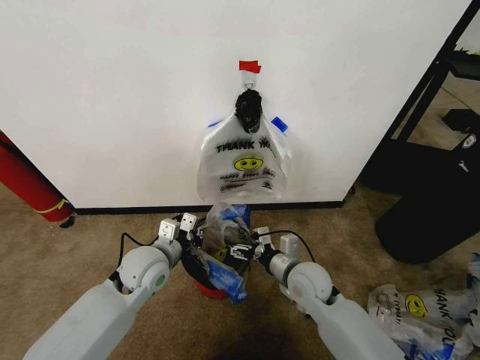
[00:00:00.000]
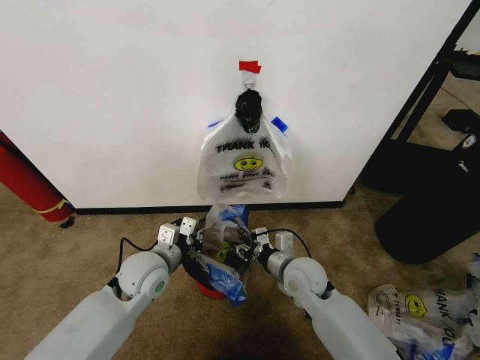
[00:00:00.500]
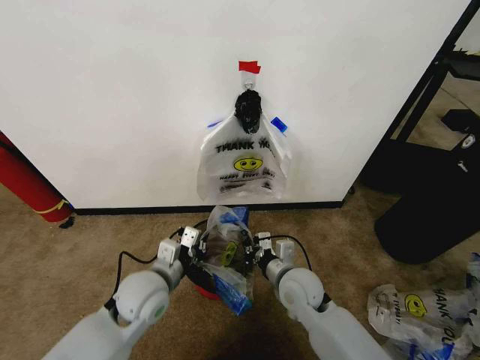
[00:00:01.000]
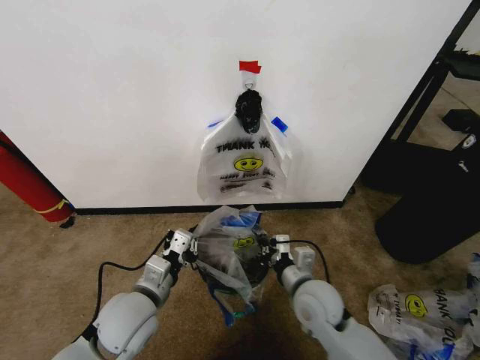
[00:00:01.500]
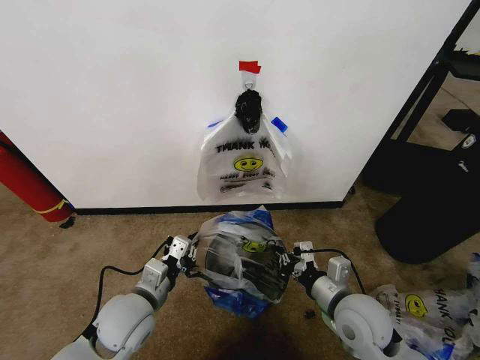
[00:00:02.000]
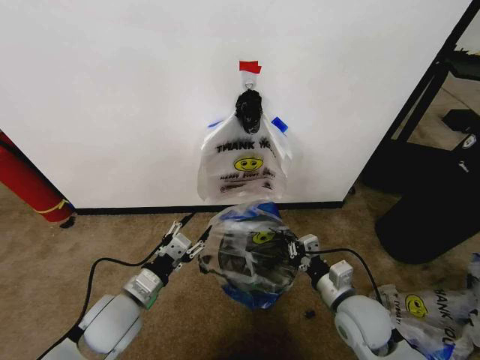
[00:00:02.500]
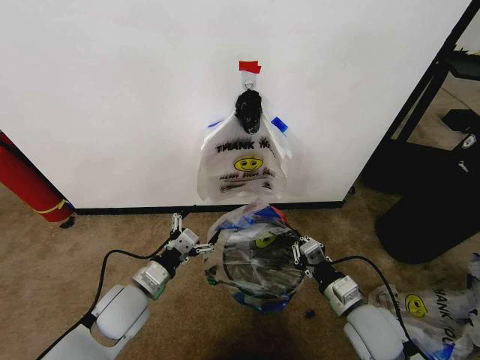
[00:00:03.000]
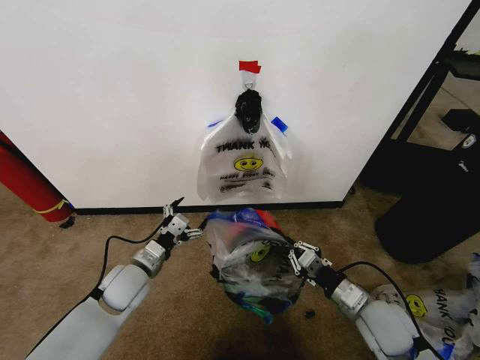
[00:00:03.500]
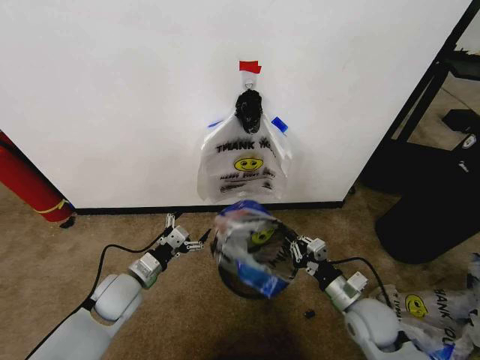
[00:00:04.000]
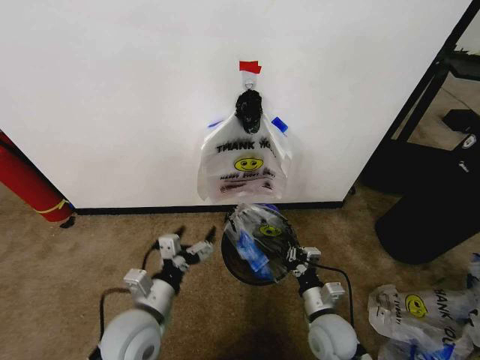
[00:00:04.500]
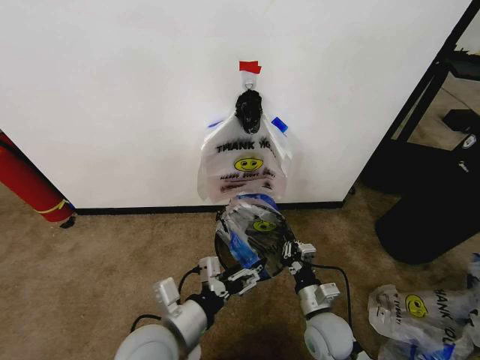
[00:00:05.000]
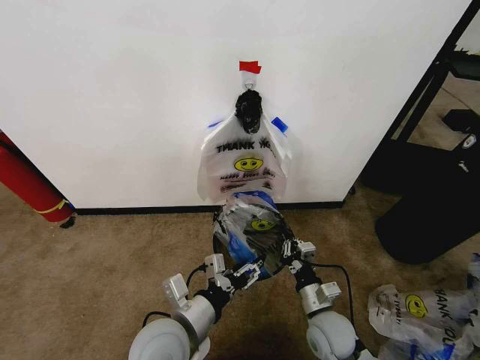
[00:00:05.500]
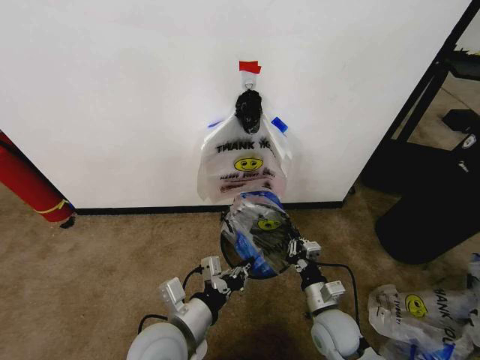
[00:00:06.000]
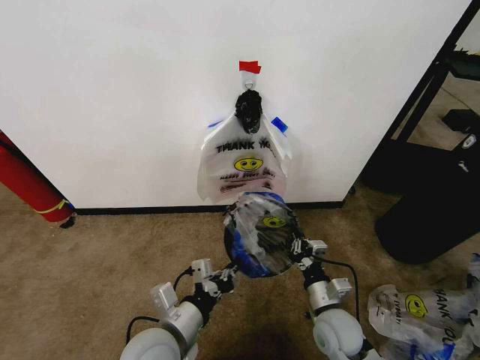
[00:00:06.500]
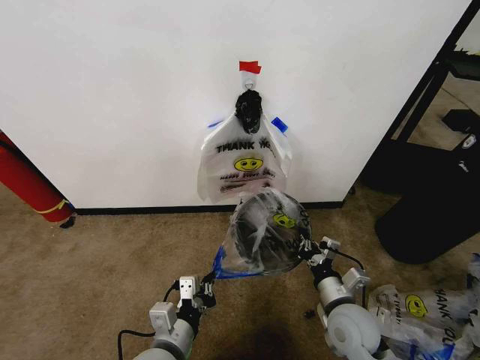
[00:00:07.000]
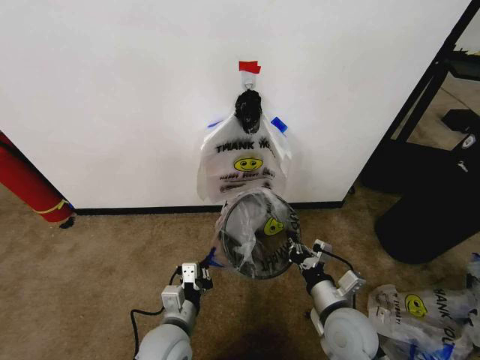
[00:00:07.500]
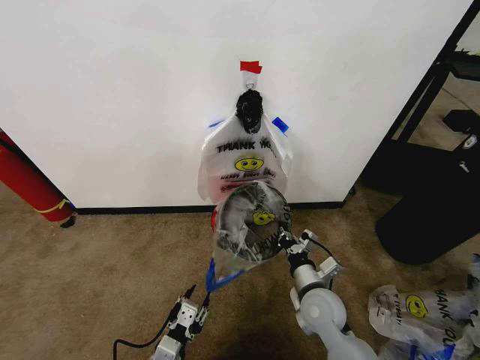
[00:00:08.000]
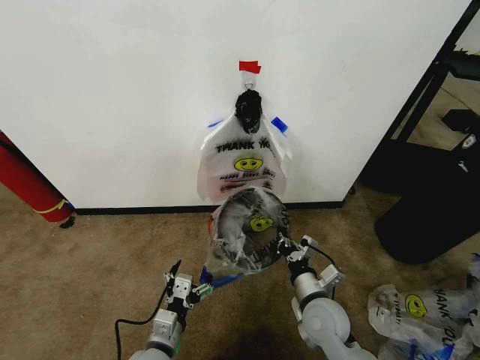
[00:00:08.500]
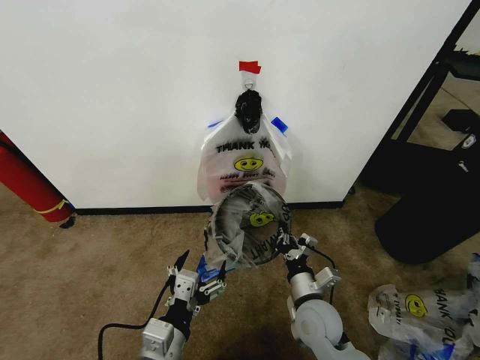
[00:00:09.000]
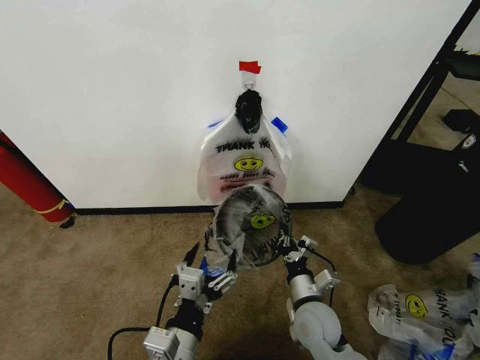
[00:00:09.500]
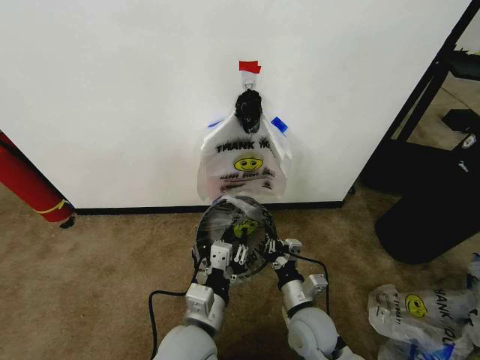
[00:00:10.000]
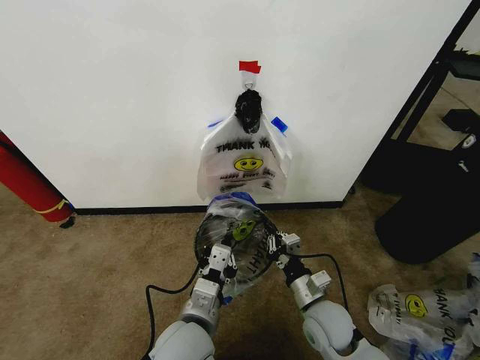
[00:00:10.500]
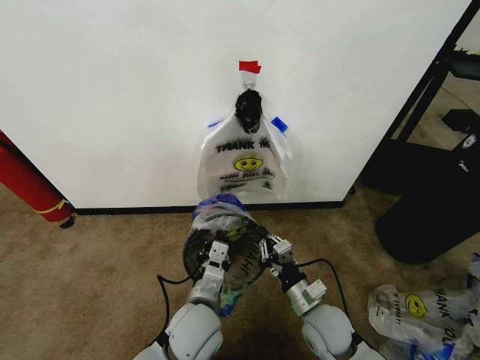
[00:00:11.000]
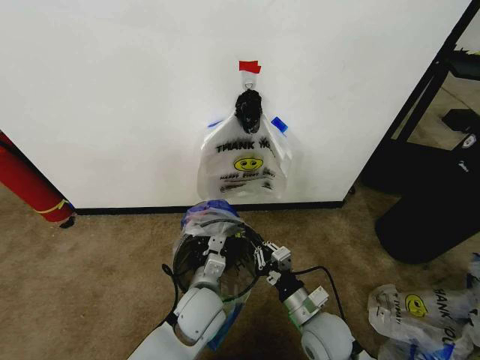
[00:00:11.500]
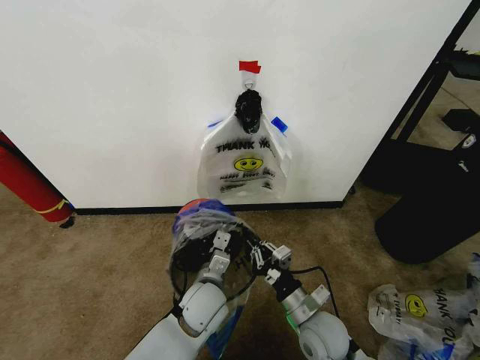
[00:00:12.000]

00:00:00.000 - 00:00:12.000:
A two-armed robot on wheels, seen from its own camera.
Task of the whole recording: Pick up the garbage bag from the wall and place it over the trash bin.
00:00:00.000 - 00:00:02.000: The left gripper goes roughly 10 cm backward, while the right gripper is displaced backward and to the right by approximately 10 cm, and closes.
00:00:02.000 - 00:00:04.000: The left gripper is displaced forward and to the left by about 10 cm, and opens its fingers. The right gripper goes some 10 cm downward and to the right.
00:00:04.000 - 00:00:06.000: The left gripper shifts roughly 20 cm to the right, backward and upward, and closes its fingers. The right gripper travels to the left by roughly 5 cm.
00:00:06.000 - 00:00:08.000: The right gripper ends up approximately 5 cm from where it was, while the left gripper is displaced downward, backward and to the left by roughly 15 cm, and opens up.
00:00:08.000 - 00:00:10.000: The left gripper moves upward, to the right and forward, approximately 15 cm, and opens and closes again; the right gripper ends up roughly 5 cm from where it was.
00:00:10.000 - 00:00:12.000: The left gripper heads forward and downward, covering some 10 cm, and closes up.

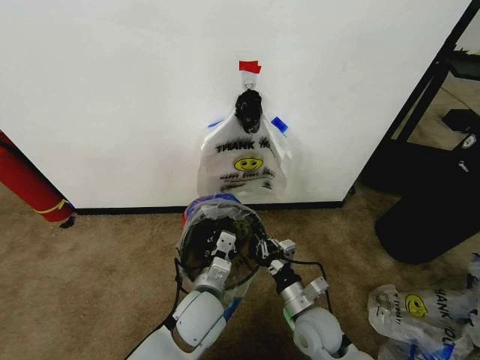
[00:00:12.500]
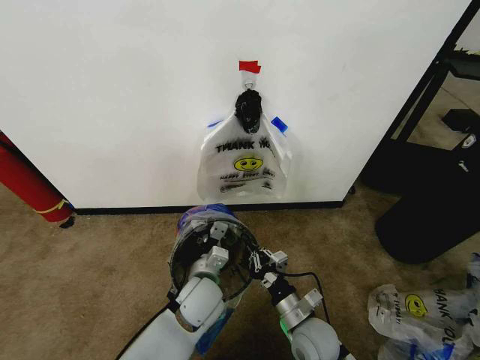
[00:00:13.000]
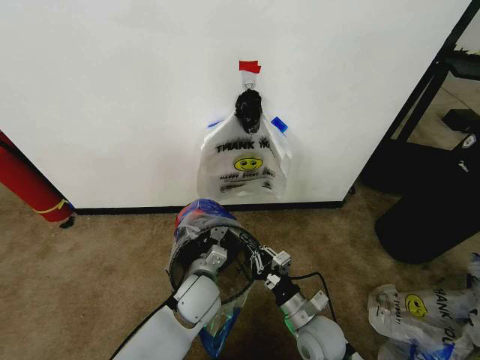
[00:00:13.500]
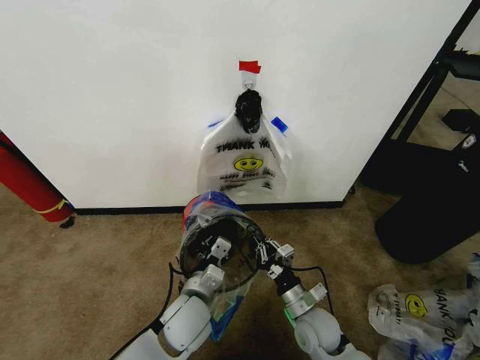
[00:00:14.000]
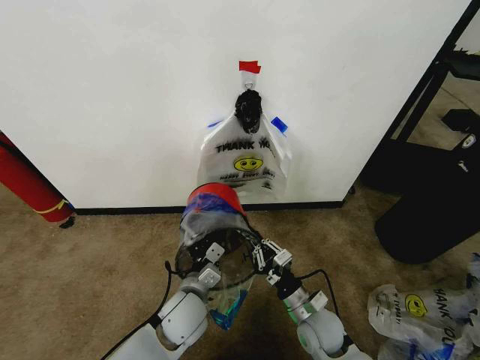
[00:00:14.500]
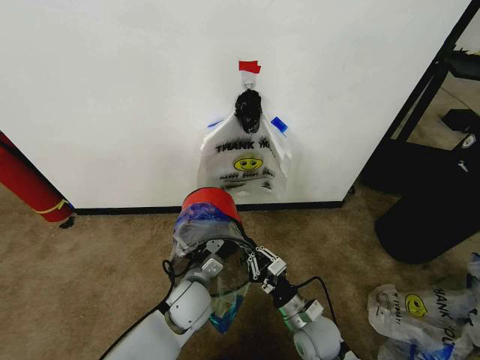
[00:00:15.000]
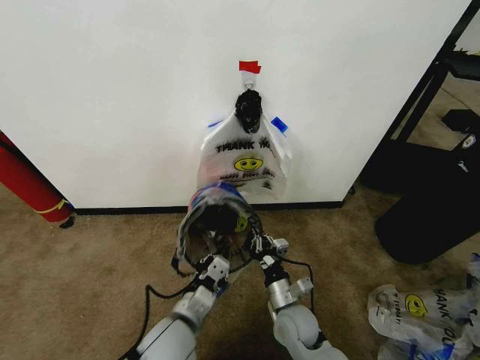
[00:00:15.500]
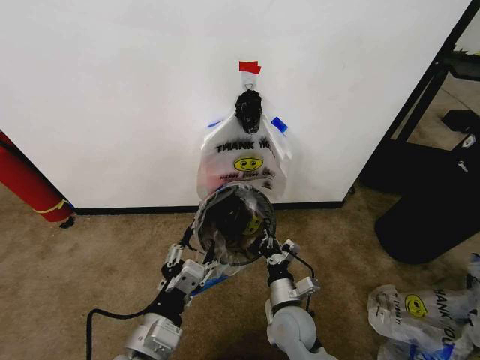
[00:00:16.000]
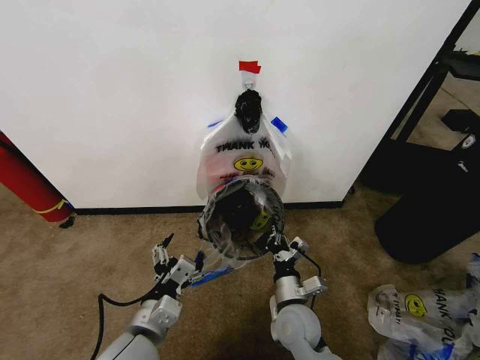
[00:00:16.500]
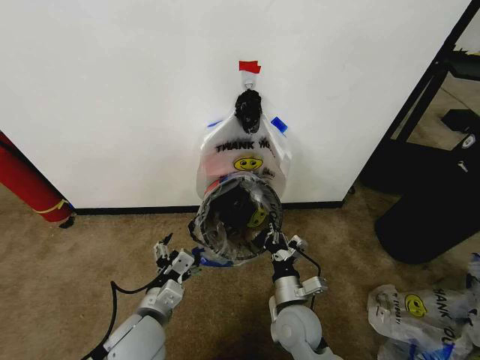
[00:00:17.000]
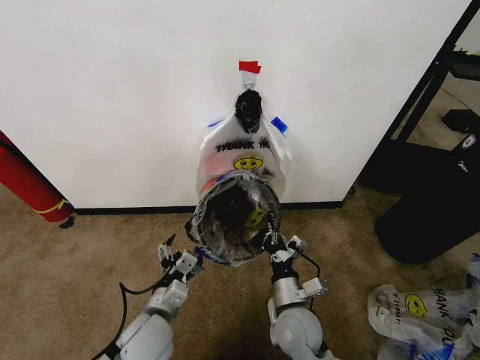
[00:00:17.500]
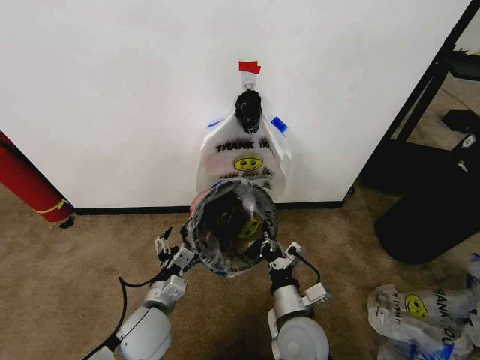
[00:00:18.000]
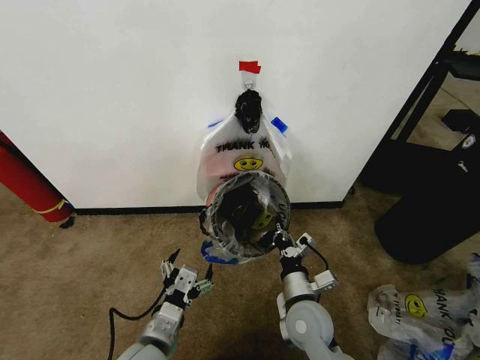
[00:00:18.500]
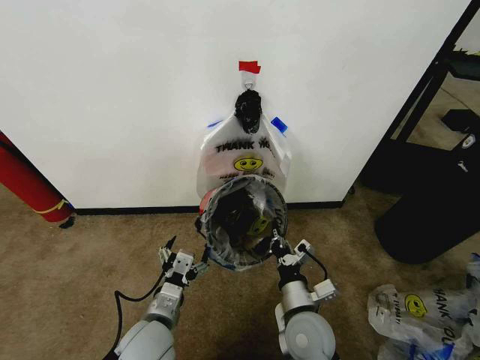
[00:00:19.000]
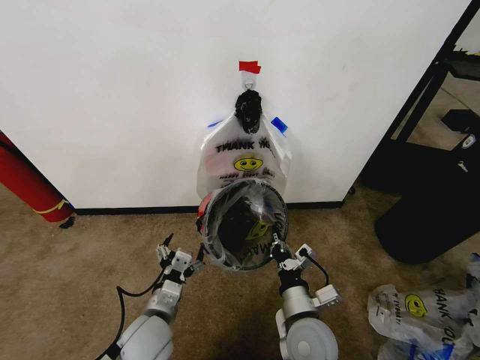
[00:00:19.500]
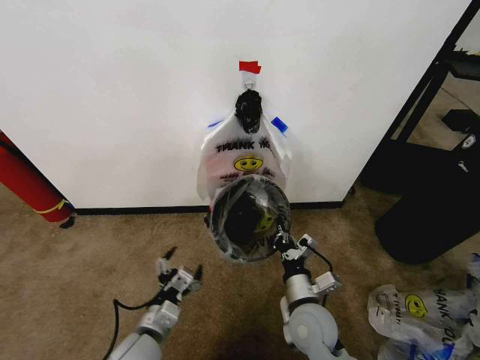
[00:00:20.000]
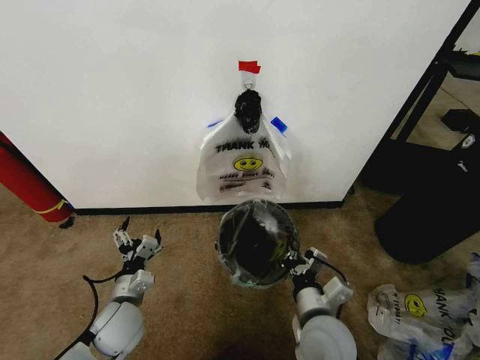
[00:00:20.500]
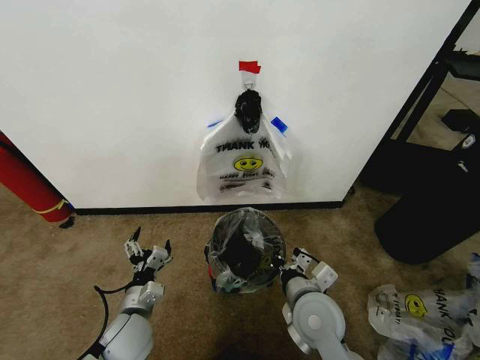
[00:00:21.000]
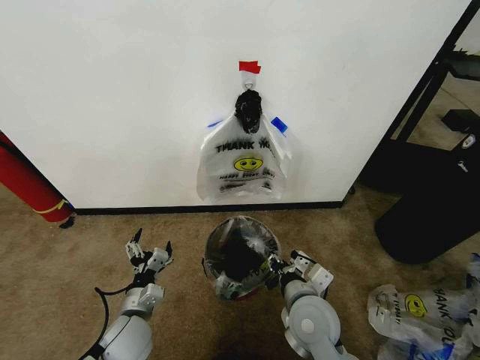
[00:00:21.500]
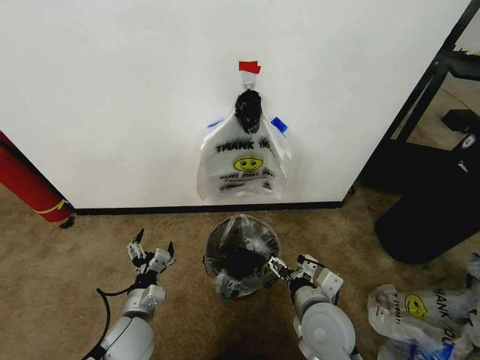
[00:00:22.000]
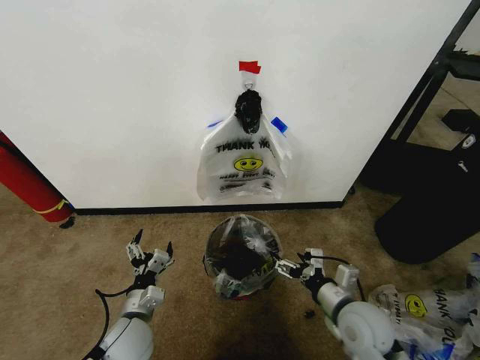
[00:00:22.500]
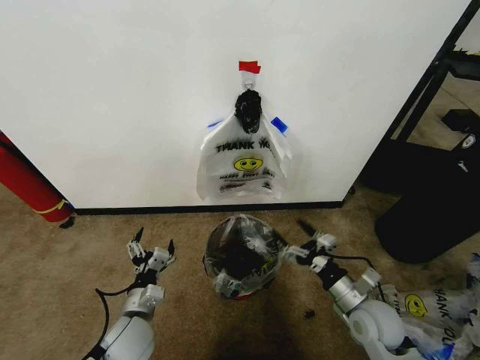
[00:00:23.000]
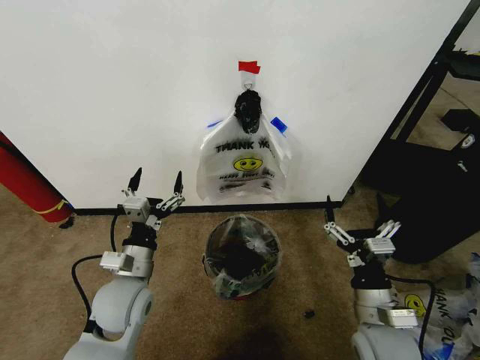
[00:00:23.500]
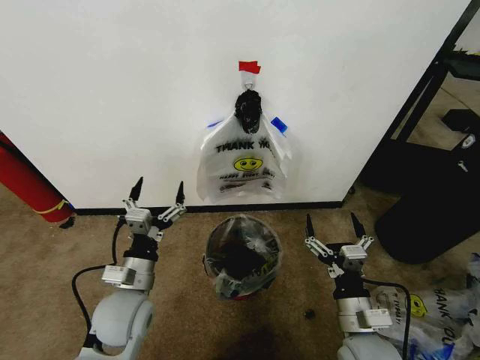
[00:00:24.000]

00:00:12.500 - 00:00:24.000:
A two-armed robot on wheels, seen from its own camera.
Task of the whole recording: Pick up the garbage bag from the wall and place it over the trash bin.
00:00:14.500 - 00:00:16.500: The left gripper heads backward, upward and to the left, covering approximately 15 cm, and opens; the right gripper heads to the left, covering roughly 5 cm.
00:00:18.500 - 00:00:20.000: The left gripper shifts by approximately 5 cm.
00:00:20.000 - 00:00:22.000: The right gripper shifts by some 5 cm, and opens.
00:00:22.000 - 00:00:24.000: The left gripper travels upward by roughly 10 cm, while the right gripper is displaced to the right by roughly 5 cm.
